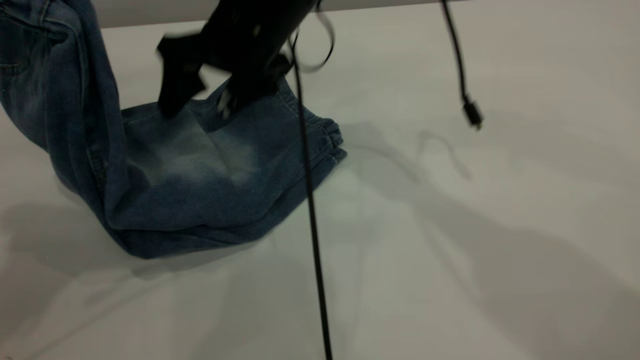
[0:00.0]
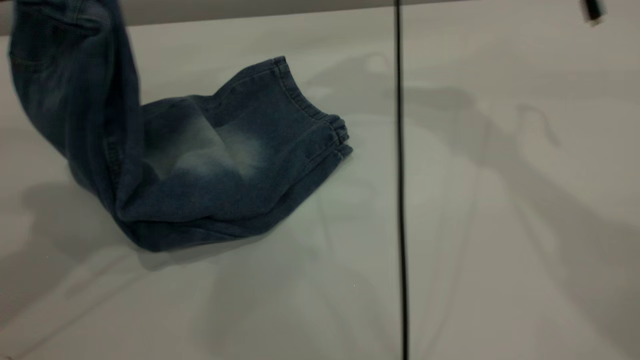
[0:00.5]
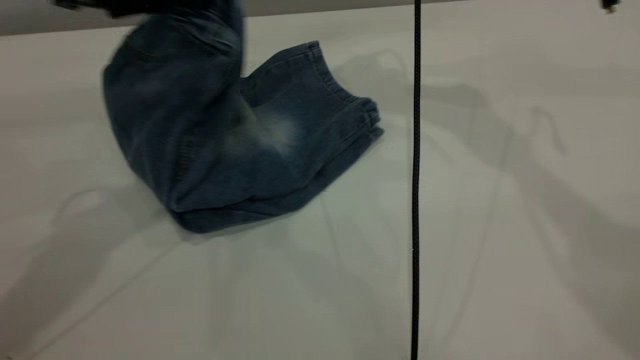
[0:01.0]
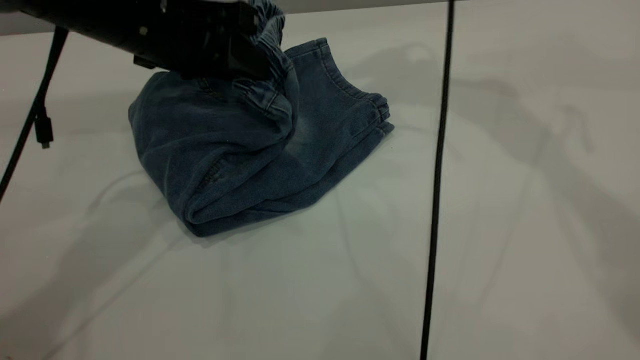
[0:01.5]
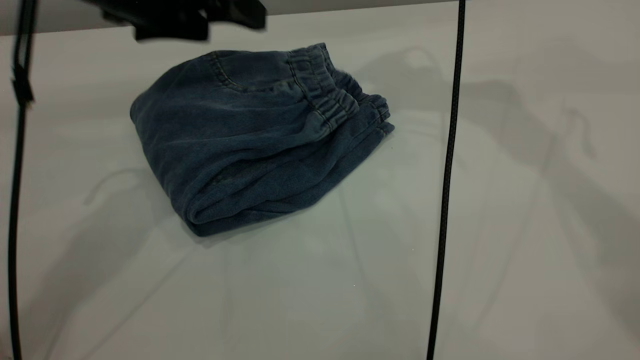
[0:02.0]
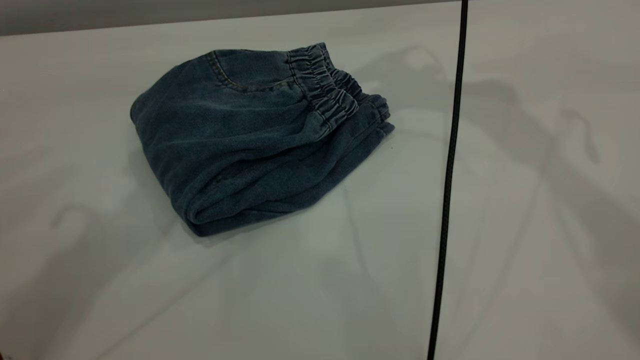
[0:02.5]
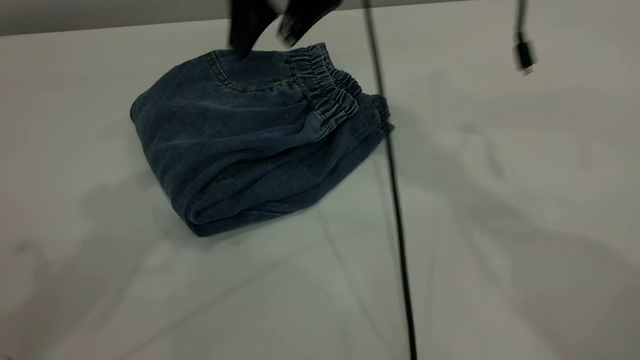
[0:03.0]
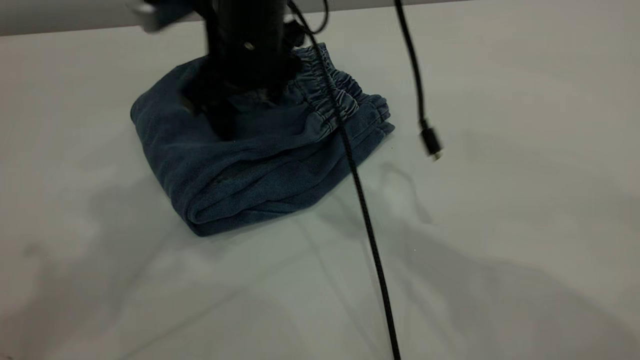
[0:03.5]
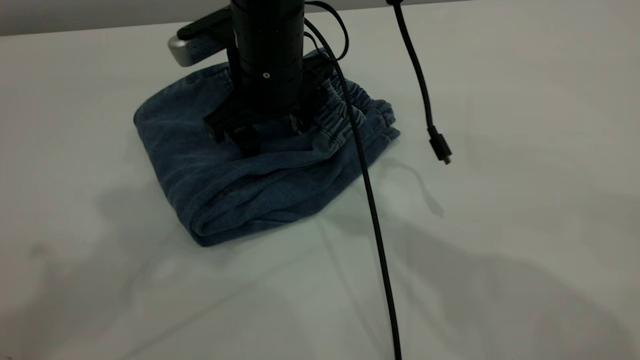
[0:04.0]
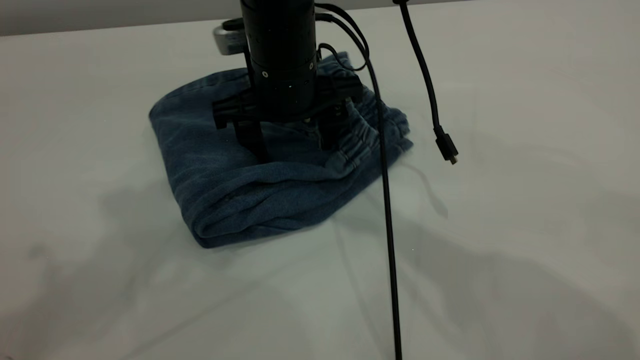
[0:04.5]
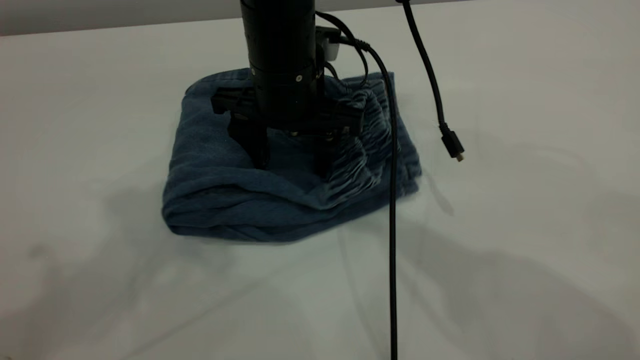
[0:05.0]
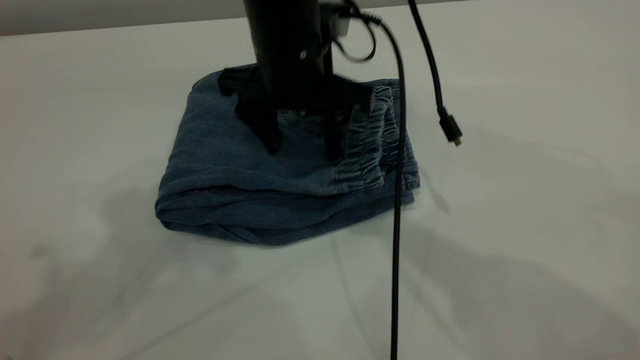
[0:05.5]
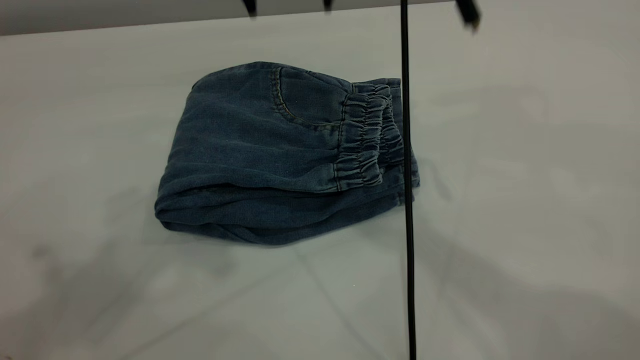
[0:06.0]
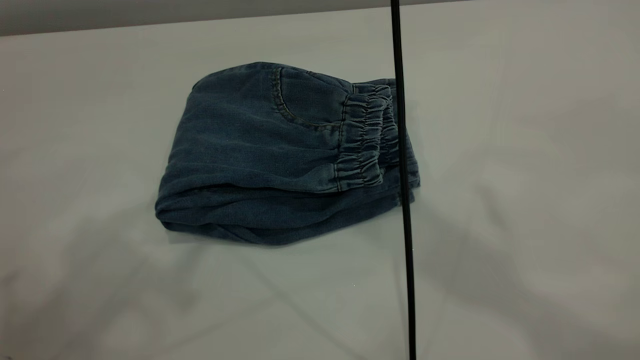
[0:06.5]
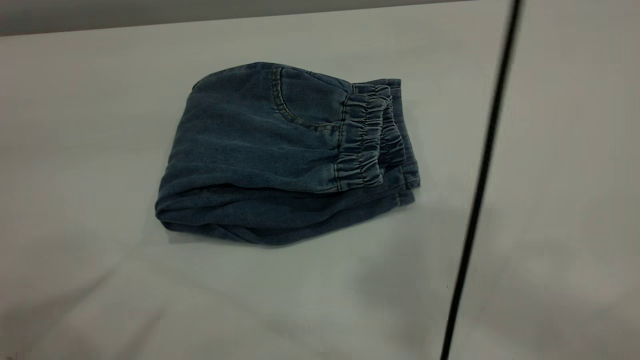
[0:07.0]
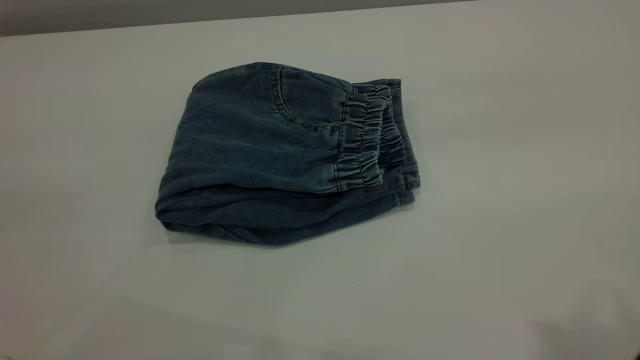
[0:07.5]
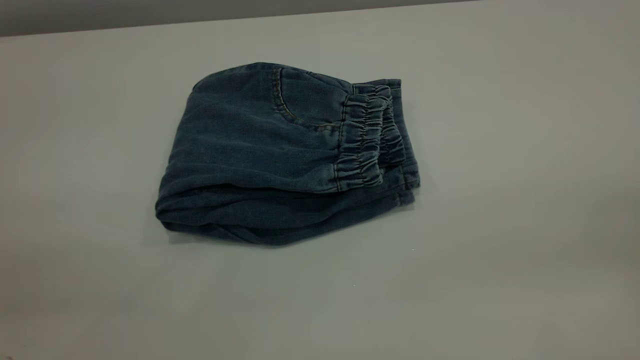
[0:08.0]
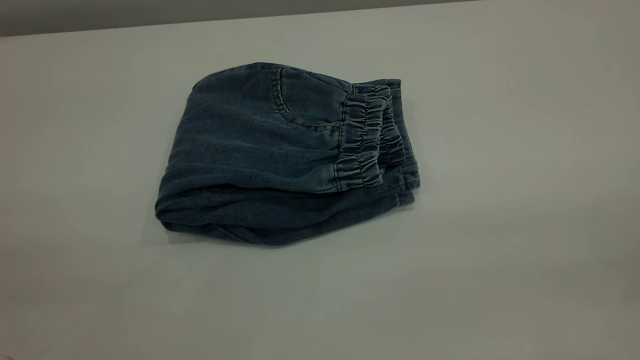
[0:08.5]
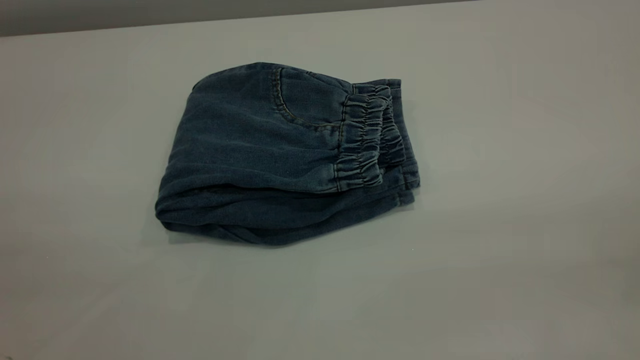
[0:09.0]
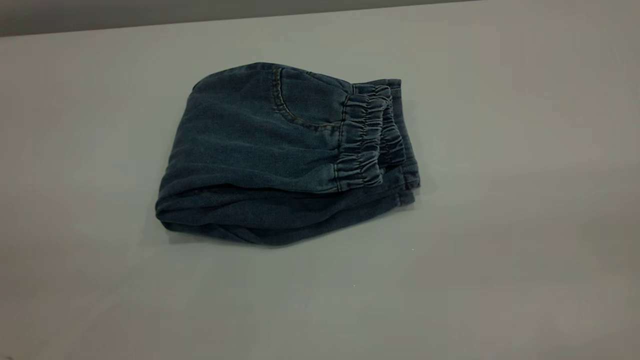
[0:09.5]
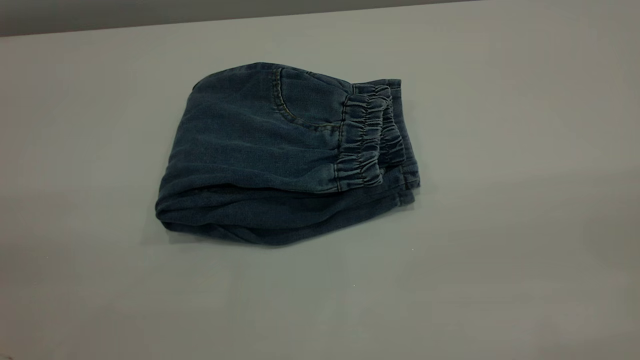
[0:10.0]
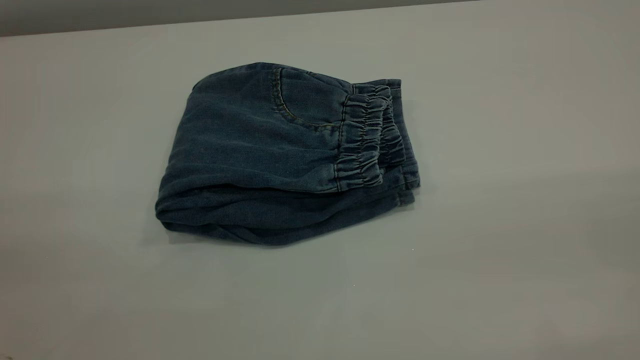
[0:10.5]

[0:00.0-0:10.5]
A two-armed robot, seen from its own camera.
Step, 0:00.0 to 0:02.5: Fold the pants from left to right.
0:00.0 to 0:02.0: The left gripper moves forward, to the right and downward, some 15 cm, and opens up, while the right gripper moves to the right and upward, roughly 20 cm.
0:02.0 to 0:04.0: The left gripper heads upward and backward, covering about 20 cm; the right gripper goes roughly 25 cm downward, to the left and backward.
0:04.0 to 0:06.5: The left gripper changes place by roughly 5 cm; the right gripper moves upward, some 30 cm.
0:06.5 to 0:08.5: The right gripper travels backward and to the right by about 40 cm, while the left gripper moves backward, downward and to the left, about 25 cm.
